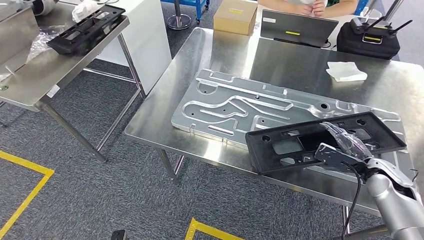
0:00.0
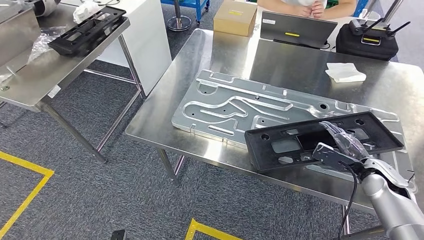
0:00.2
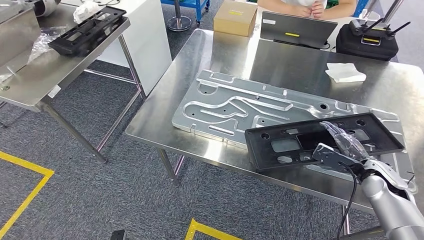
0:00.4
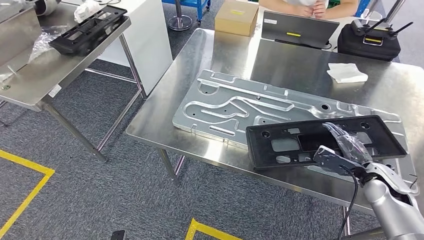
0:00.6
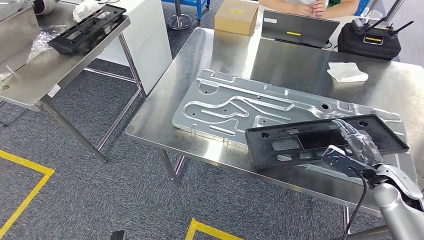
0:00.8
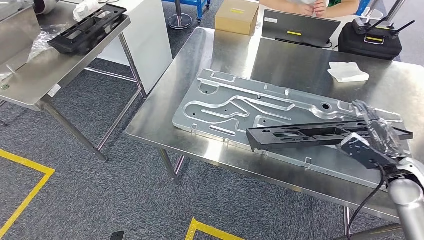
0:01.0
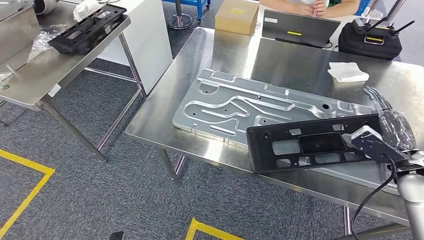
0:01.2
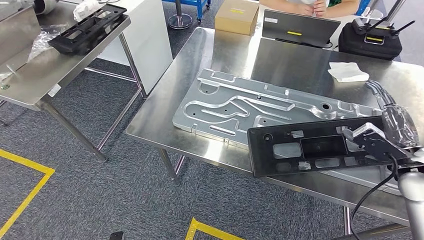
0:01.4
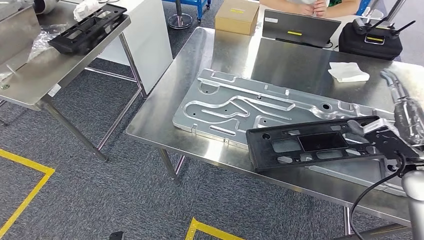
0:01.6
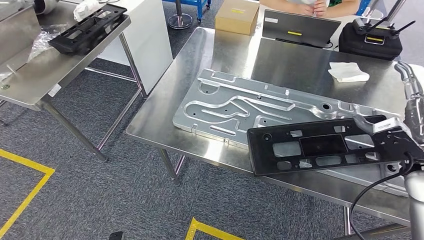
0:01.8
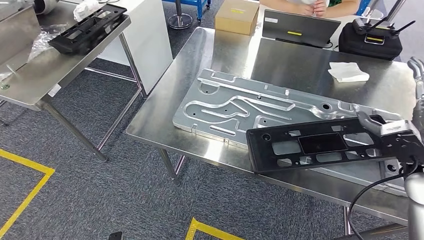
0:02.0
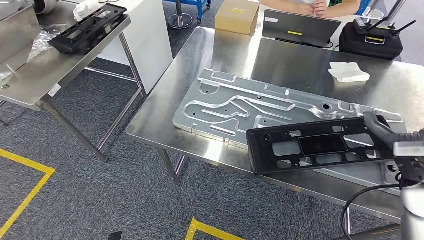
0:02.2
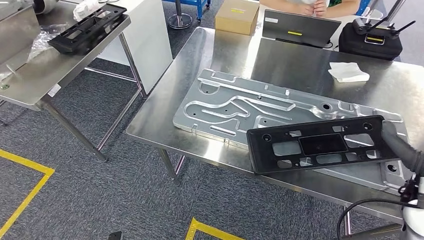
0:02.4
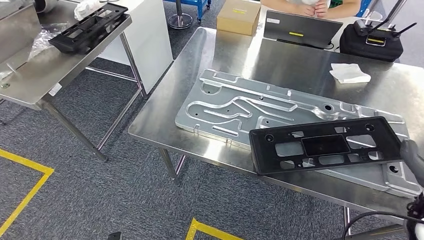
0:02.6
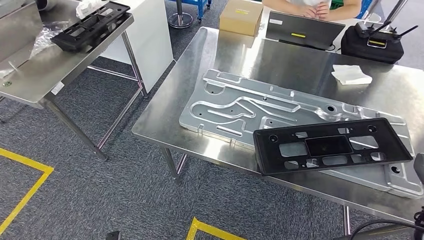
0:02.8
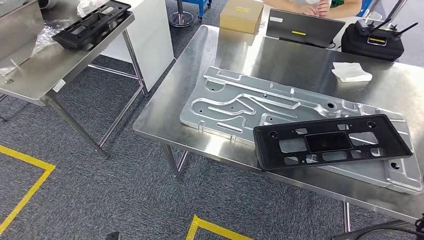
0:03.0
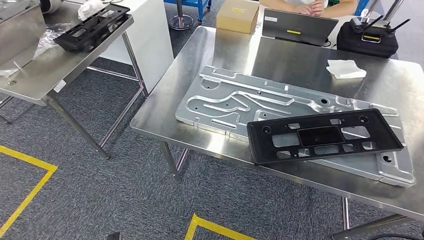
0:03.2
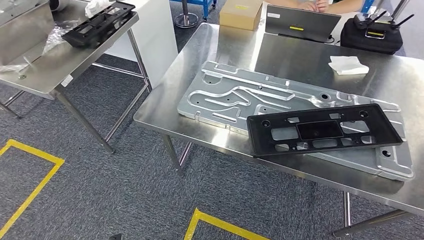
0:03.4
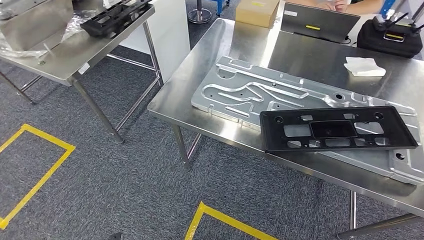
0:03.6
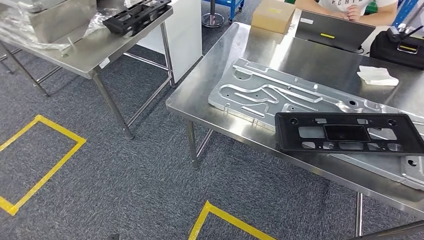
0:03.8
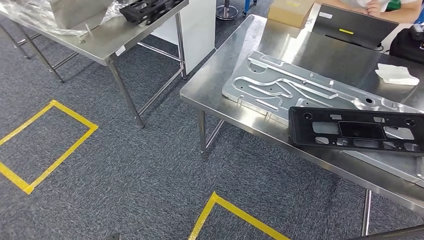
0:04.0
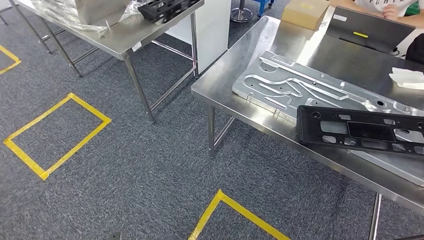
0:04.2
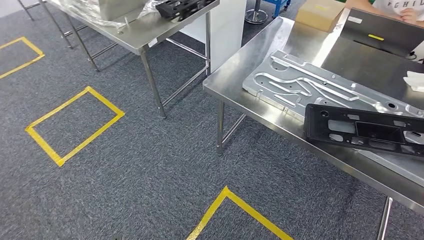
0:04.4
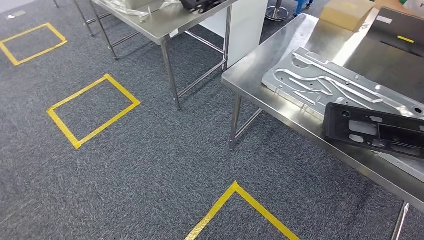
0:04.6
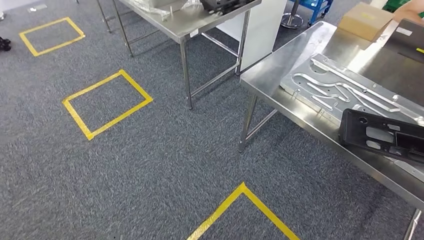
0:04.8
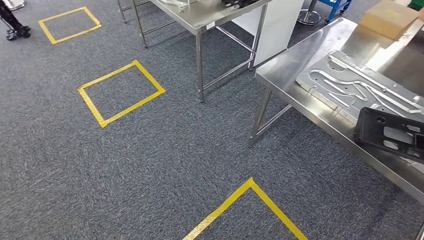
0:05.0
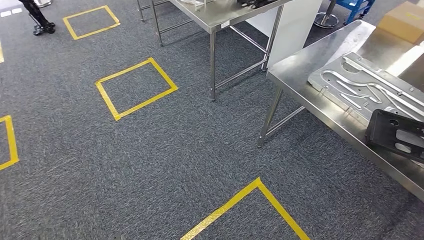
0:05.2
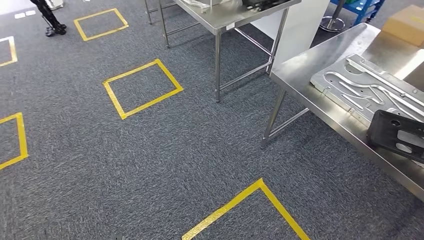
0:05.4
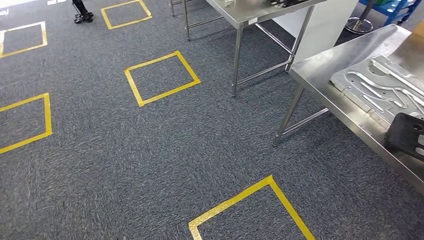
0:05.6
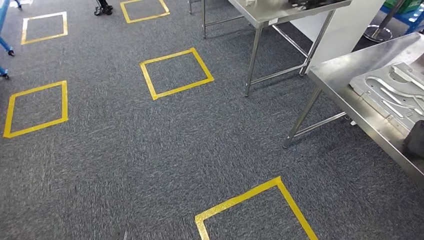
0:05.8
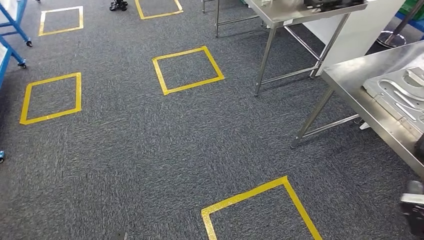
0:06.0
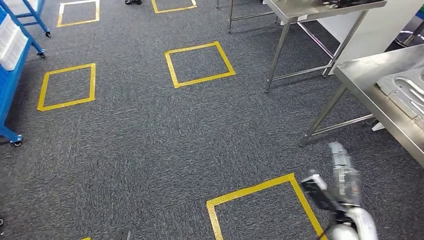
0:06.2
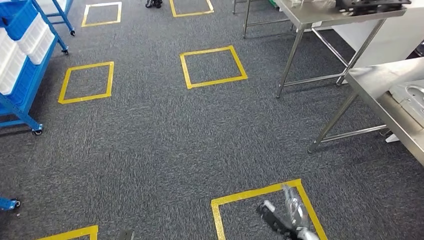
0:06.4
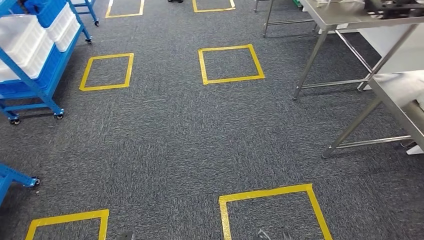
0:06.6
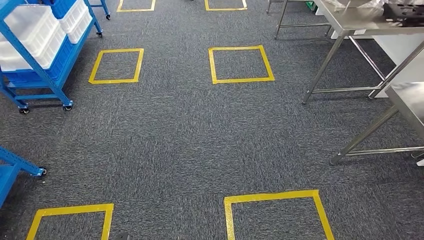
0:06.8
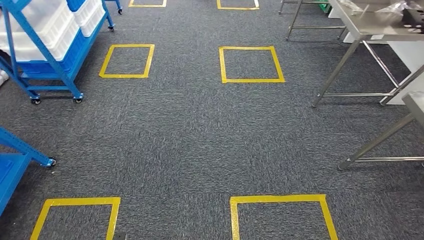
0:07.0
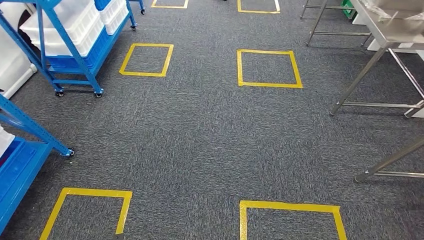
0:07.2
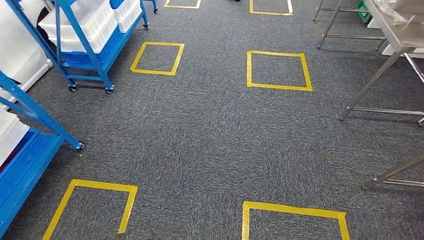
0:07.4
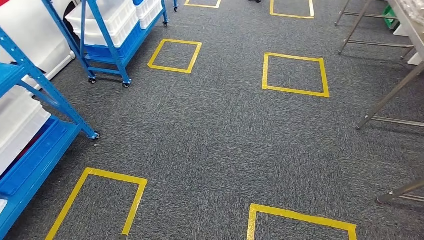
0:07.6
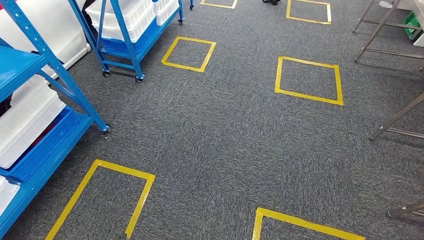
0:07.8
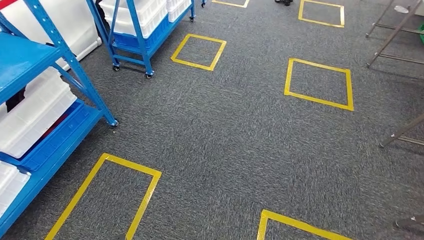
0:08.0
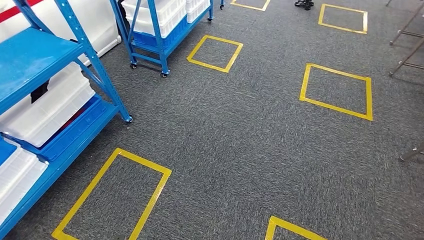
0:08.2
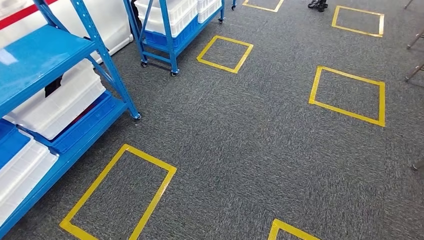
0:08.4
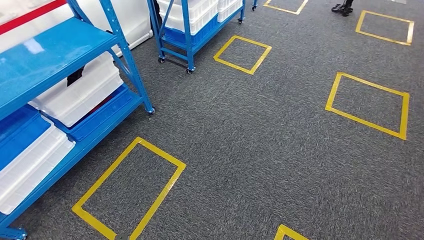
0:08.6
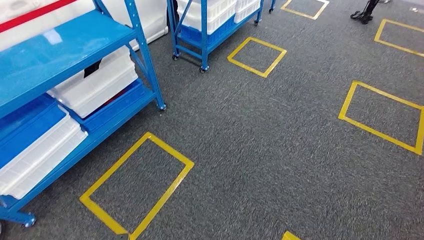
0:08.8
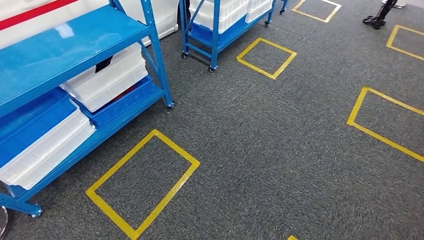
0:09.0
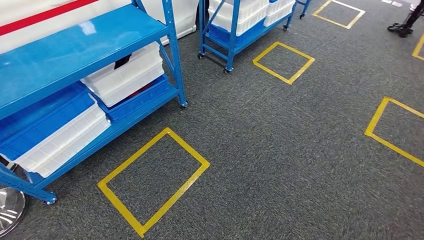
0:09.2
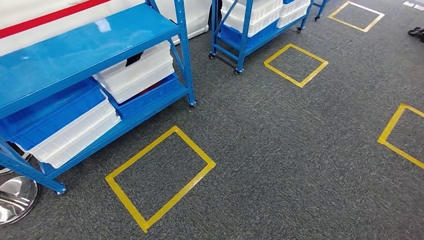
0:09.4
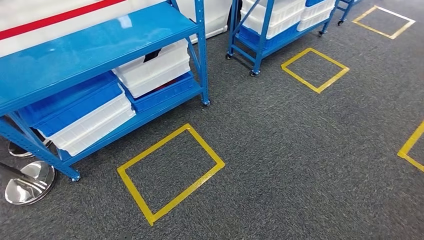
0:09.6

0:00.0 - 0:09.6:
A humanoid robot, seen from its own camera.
0:00.0 - 0:01.6: The right hand goes roughly 10 cm upward.

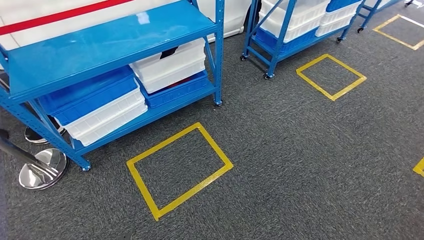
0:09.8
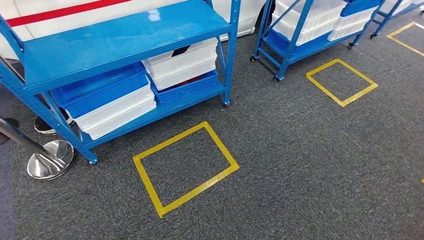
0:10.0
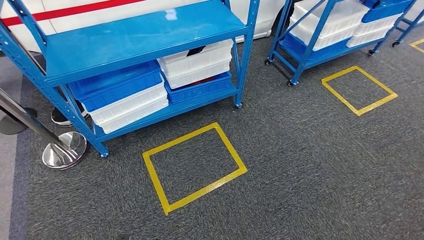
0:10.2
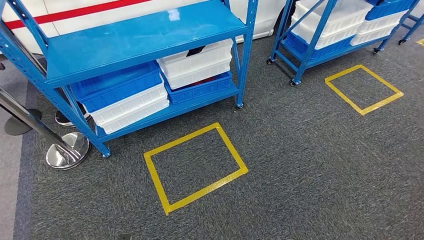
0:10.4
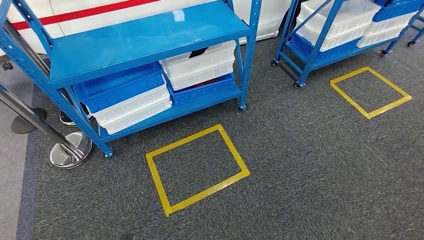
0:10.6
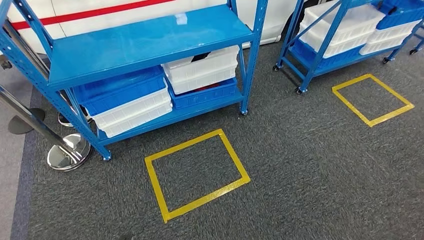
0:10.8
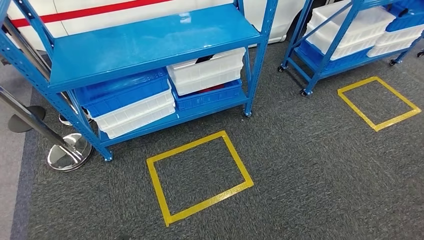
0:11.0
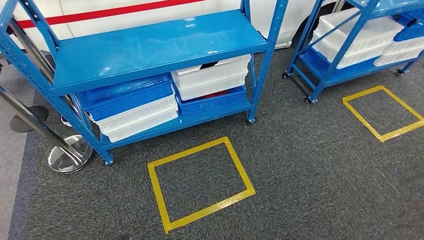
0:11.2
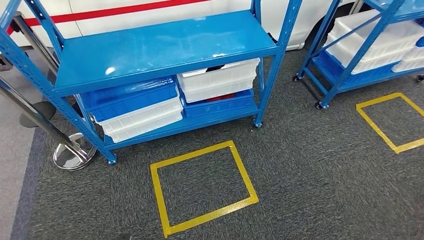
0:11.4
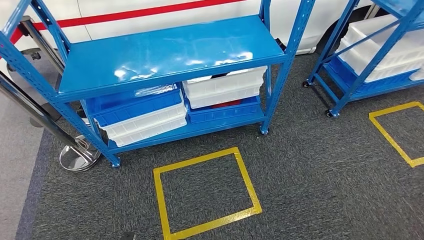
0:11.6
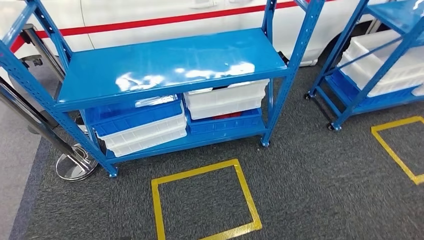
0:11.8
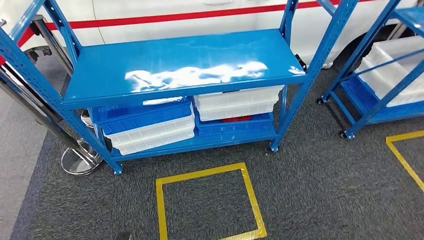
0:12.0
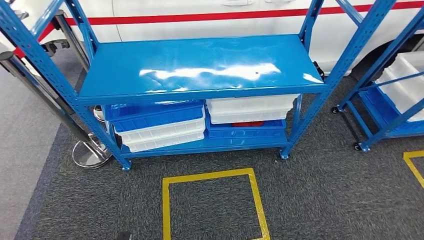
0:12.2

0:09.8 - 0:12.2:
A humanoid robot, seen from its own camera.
Step, 0:09.8 - 0:12.2: Move to the initial position of the shelf.
